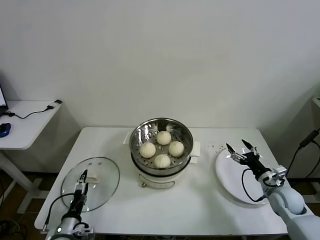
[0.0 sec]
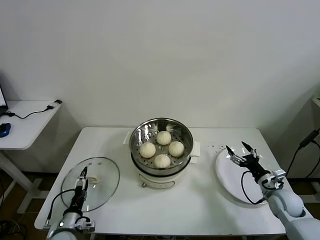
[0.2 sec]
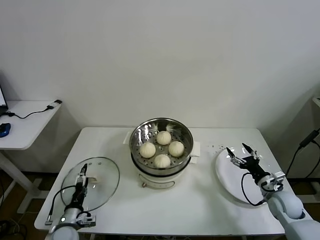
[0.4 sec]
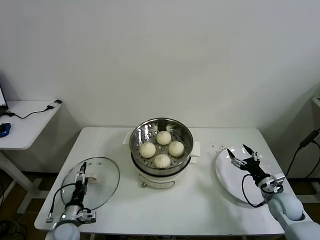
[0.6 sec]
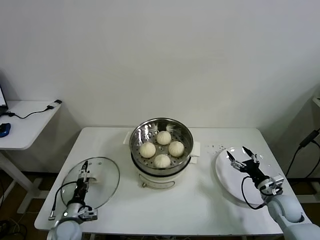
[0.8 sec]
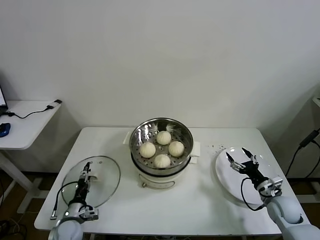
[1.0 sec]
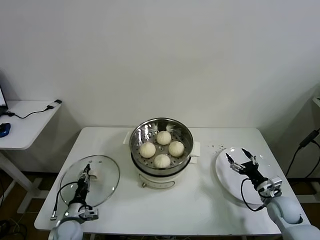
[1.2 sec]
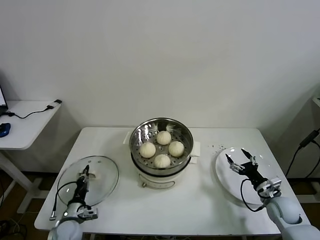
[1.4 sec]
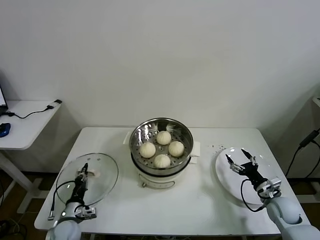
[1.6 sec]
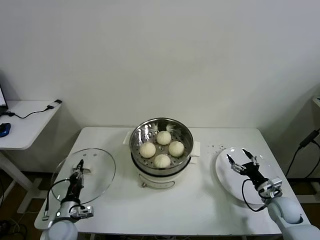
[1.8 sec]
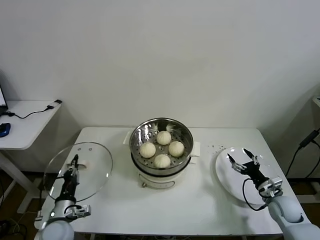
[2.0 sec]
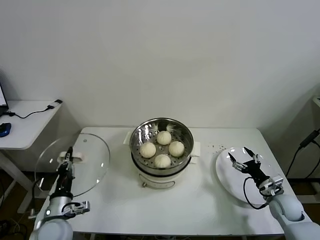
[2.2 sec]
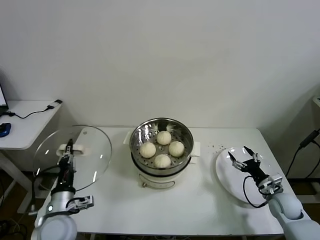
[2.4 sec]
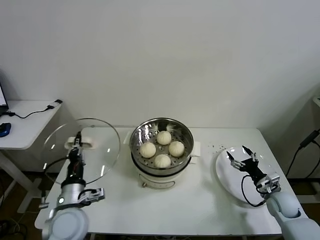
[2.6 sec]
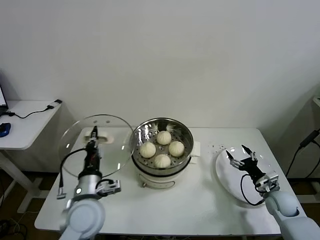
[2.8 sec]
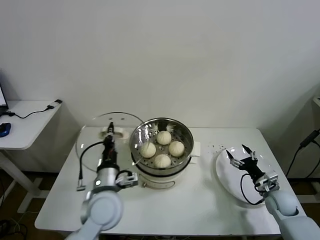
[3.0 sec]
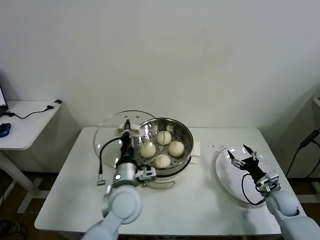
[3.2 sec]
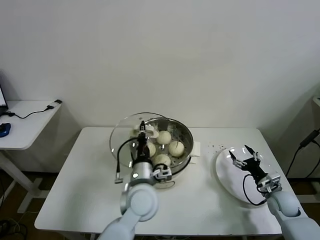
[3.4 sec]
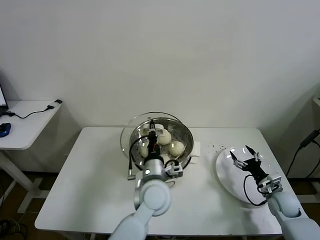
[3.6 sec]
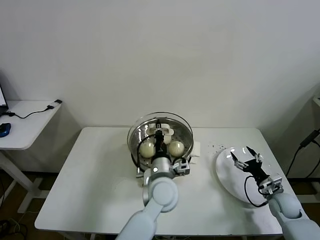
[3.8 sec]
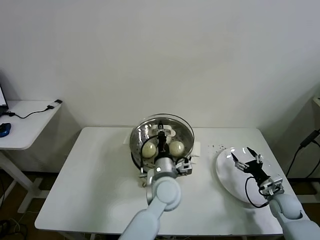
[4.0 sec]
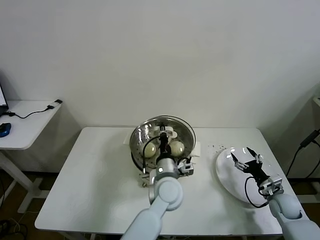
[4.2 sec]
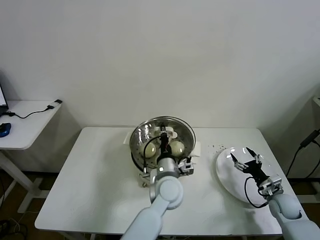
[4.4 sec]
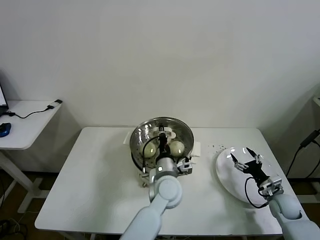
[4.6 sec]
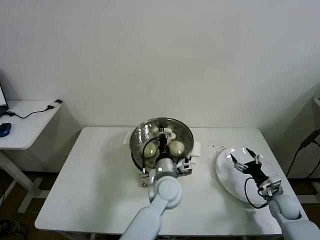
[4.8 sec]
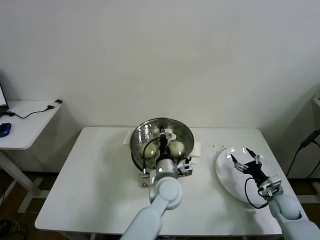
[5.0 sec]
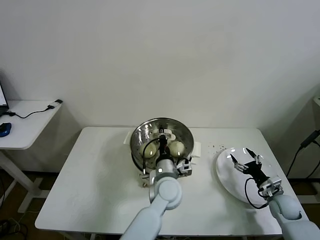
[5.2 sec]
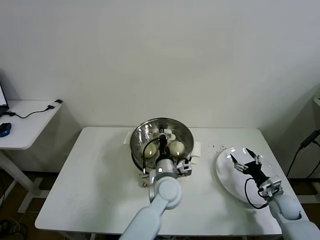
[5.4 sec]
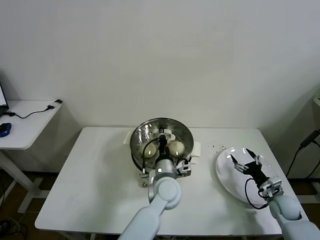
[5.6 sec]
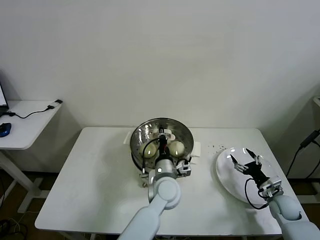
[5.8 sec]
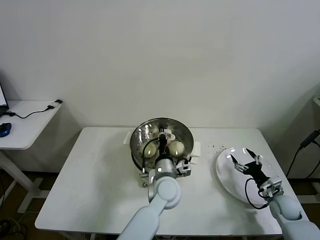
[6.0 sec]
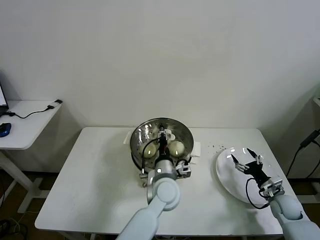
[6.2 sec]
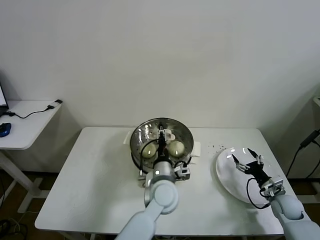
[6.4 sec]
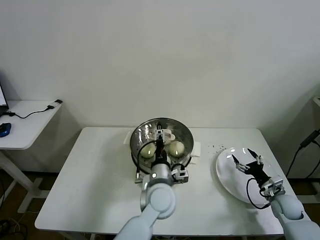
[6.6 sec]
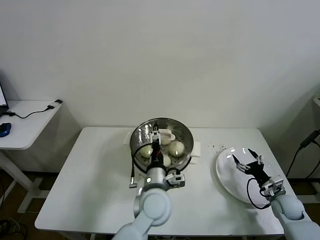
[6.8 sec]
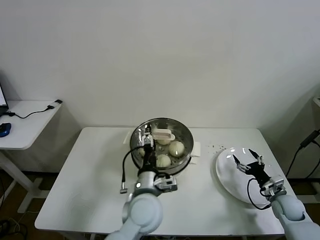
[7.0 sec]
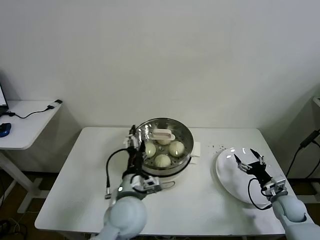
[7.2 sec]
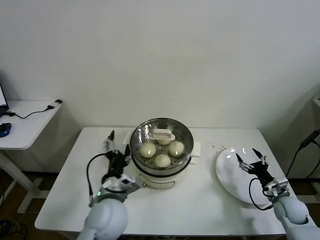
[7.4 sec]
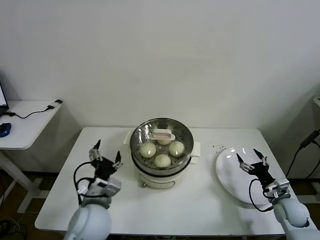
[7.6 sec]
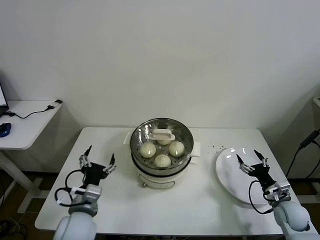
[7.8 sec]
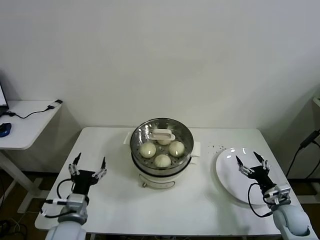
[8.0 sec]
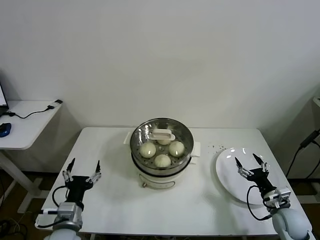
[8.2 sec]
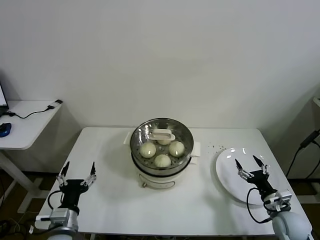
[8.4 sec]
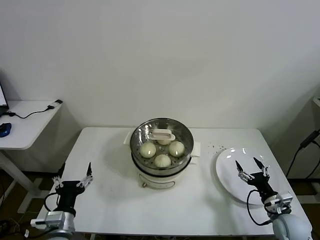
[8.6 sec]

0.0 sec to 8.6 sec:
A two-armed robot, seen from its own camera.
Task of the whole recording: take steamed baozi put them in steamer then cover it.
Step, 1.6 sec to 6.8 sec: Place the pot lid on the steamer with left gripper.
0.0 sec to 1.4 sec: The left gripper shifts approximately 5 cm forward, and closes its fingers.
1.4 sec to 2.8 sec: The left gripper is displaced upward and to the right by approximately 25 cm.
2.8 sec to 4.4 sec: The left gripper travels to the right by some 25 cm.
4.4 sec to 5.8 sec: There are only small adjustments of the grippers.
5.8 sec to 7.2 sec: The left gripper shifts some 15 cm to the left, backward and upward, and opens its fingers.
7.2 sec to 8.6 sec: The right gripper travels backward by approximately 5 cm, while the left gripper heads to the left, covering some 20 cm.
